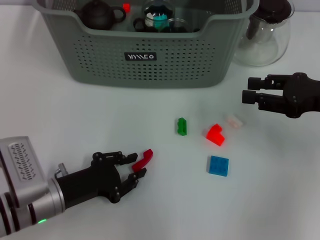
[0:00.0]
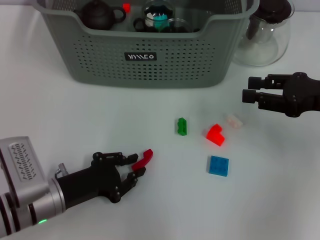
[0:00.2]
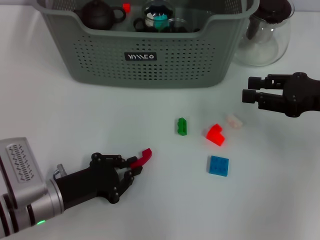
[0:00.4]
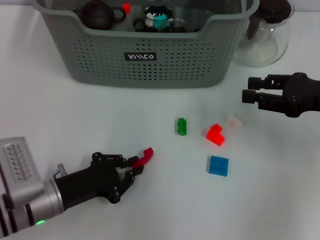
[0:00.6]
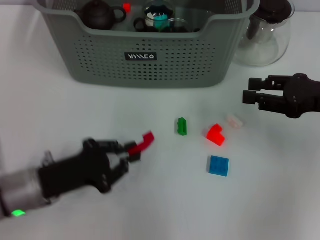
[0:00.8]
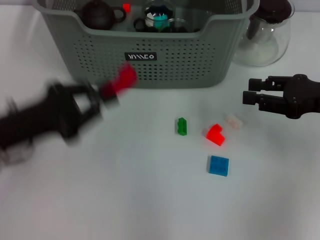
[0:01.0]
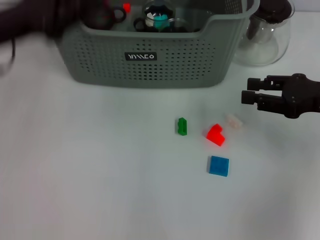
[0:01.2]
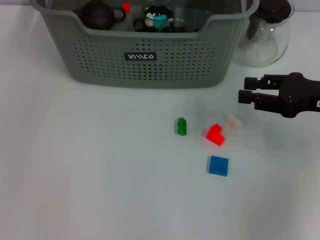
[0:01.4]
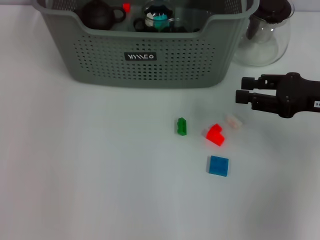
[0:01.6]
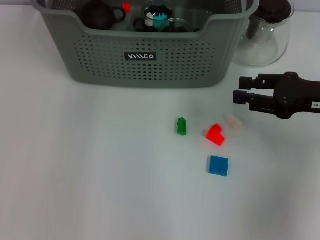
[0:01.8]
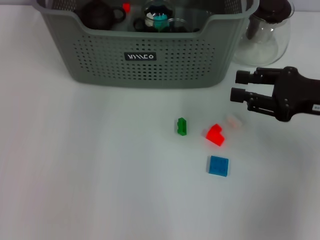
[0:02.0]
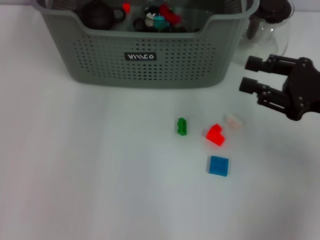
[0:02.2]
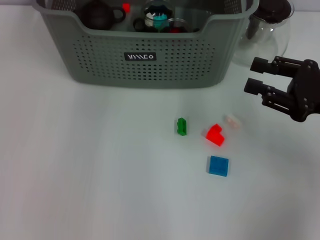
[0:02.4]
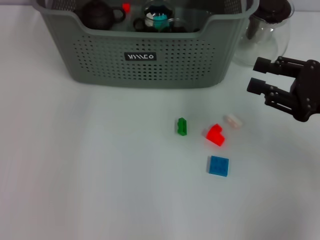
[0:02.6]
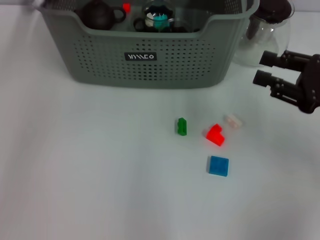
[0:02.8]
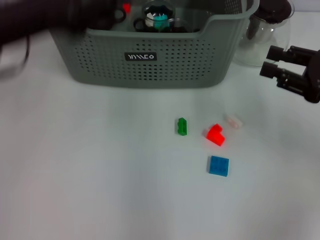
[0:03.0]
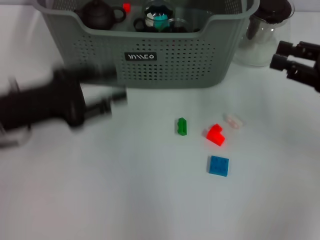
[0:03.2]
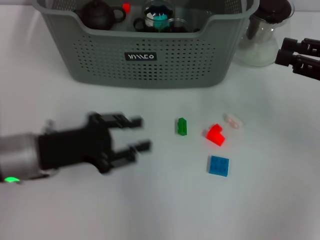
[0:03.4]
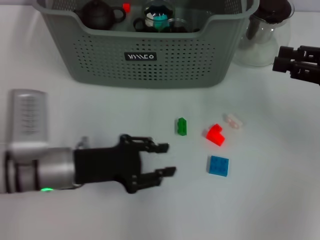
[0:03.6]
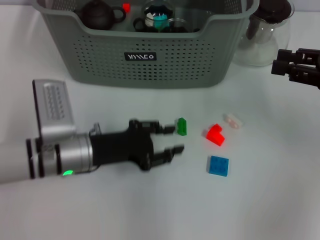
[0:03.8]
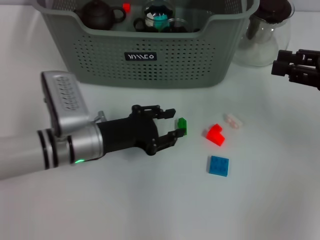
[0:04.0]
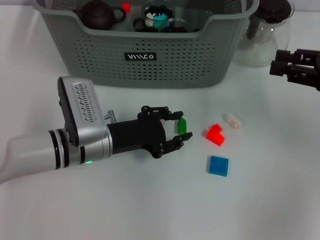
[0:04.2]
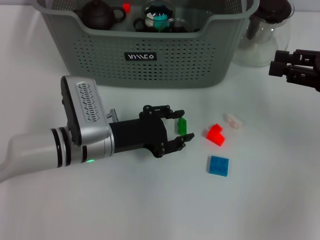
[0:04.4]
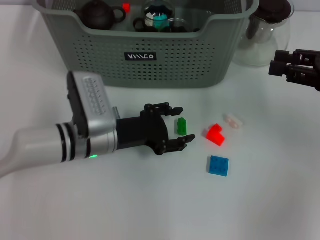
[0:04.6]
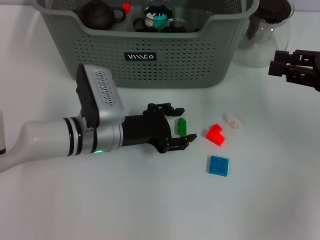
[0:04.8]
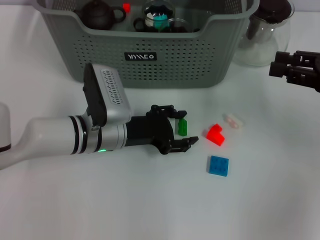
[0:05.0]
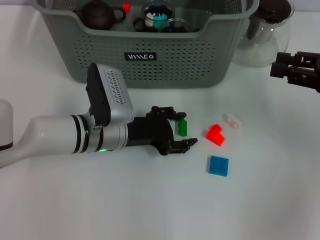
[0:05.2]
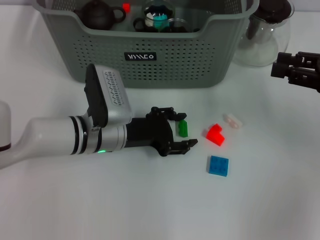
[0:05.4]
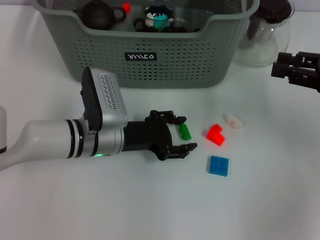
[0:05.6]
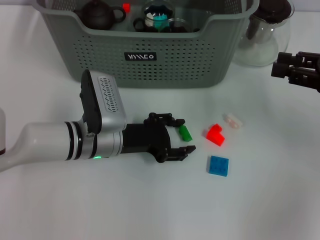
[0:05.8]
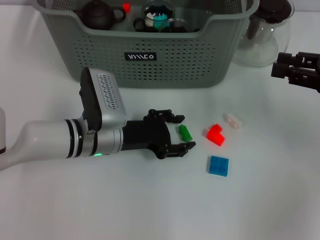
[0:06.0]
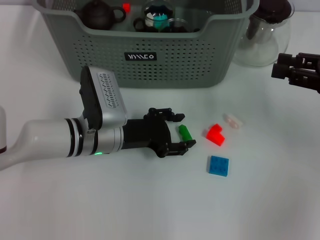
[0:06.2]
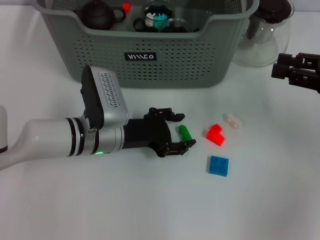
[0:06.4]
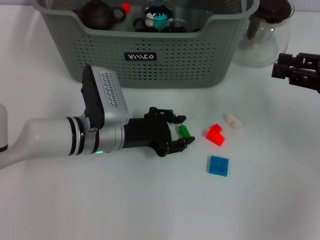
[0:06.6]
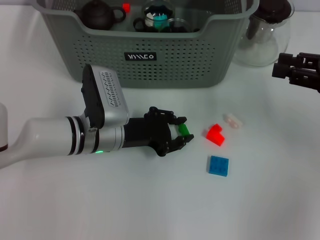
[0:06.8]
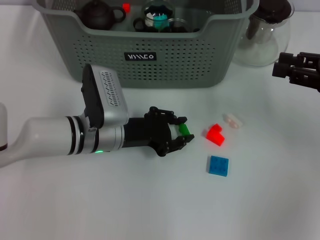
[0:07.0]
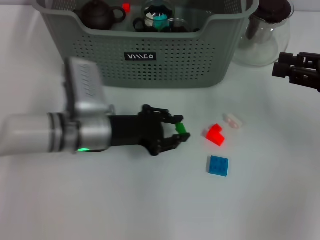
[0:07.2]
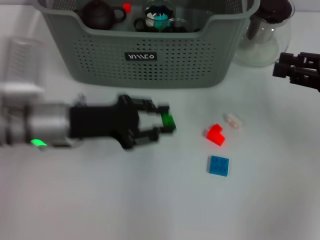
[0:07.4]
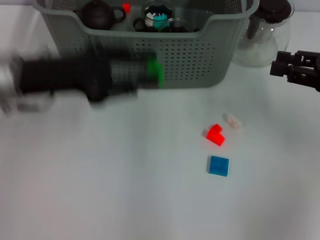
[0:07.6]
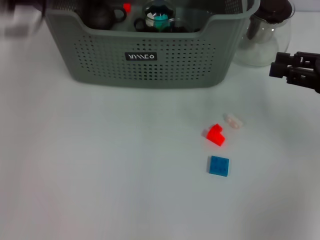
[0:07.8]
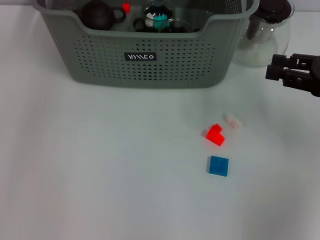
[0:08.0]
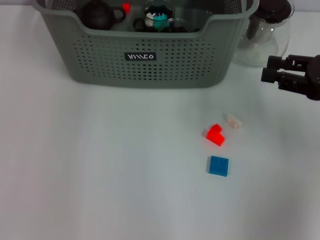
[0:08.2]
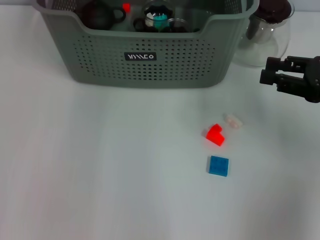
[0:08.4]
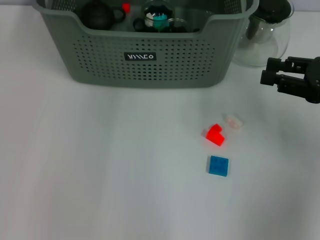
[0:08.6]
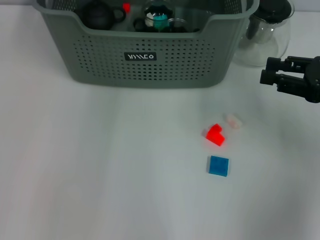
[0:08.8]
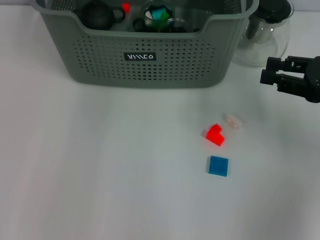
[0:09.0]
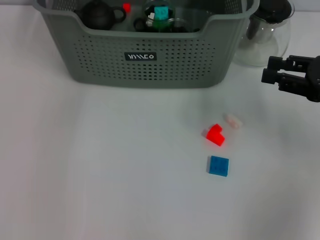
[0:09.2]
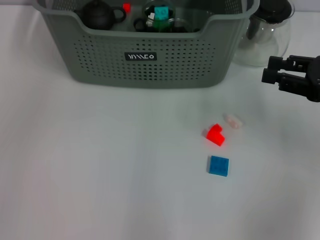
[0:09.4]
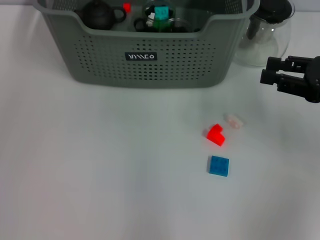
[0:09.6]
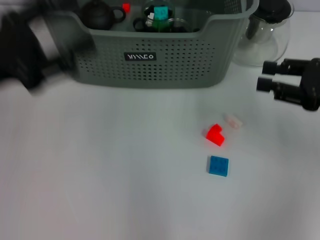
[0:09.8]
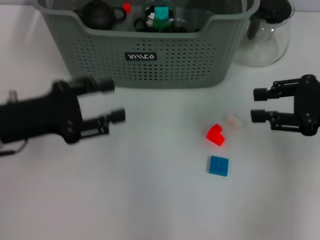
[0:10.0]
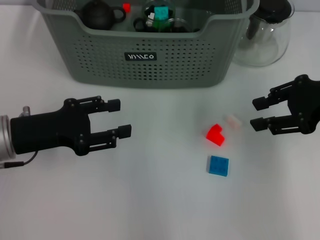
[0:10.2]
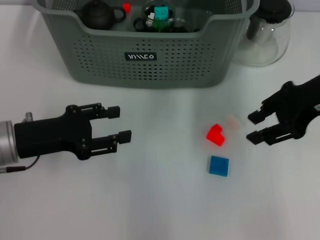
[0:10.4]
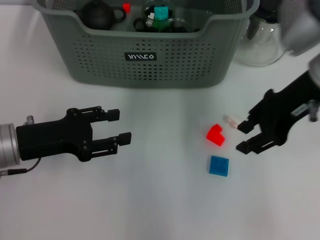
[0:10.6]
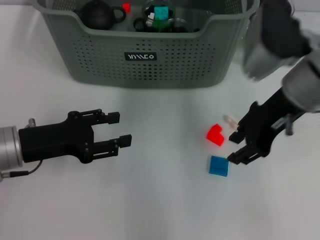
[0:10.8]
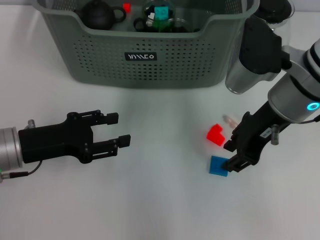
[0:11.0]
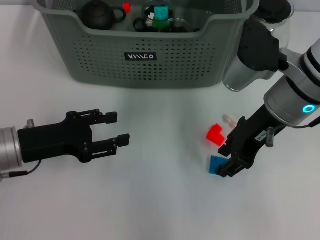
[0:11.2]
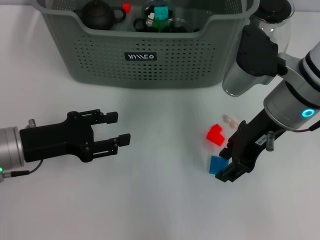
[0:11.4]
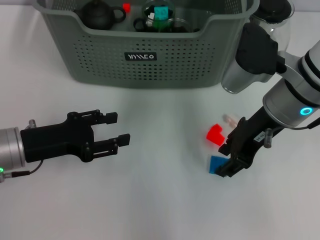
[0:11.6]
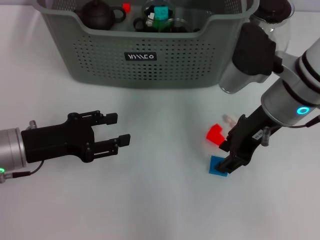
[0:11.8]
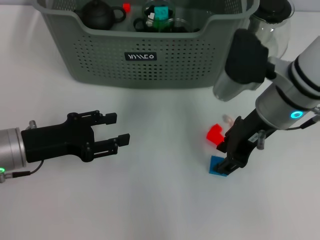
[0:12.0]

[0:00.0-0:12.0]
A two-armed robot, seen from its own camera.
Task of the whole recording: pick up the teacup on the table and place it into the storage bin, pick up the block on the table and place it into the storage bin.
Step, 0.6 to 2.6 s: Place the red block in the storage box with left gripper.
Step, 3.0 to 6.8 s: Grasp the green block with left gripper.
Step, 7.2 to 8.4 s: Place the green block in the storage box with left gripper.
0.0 to 1.6 s: The left gripper shifts approximately 35 cm upward and forward.
1.6 to 3.0 s: The left gripper heads backward and to the left, covering approximately 15 cm.
3.0 to 4.4 s: The left gripper goes some 20 cm downward and to the right.
4.4 to 6.0 s: The grippers make only small movements.
6.0 to 7.6 s: The left gripper heads upward and to the left, covering some 15 cm.
7.6 to 9.0 s: The left gripper shifts approximately 25 cm forward, to the right and upward.
9.0 to 10.4 s: The left gripper travels backward, downward and to the left by about 35 cm, while the right gripper moves to the left and upward, about 10 cm.
10.4 to 12.0 s: The right gripper shifts approximately 10 cm to the left and downward.

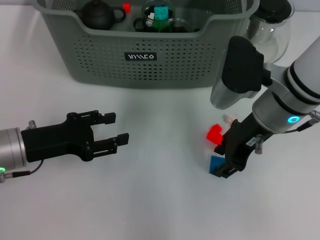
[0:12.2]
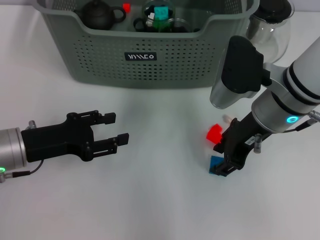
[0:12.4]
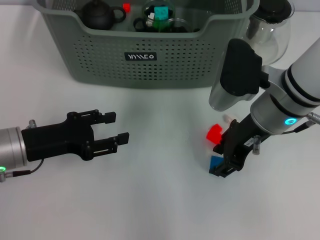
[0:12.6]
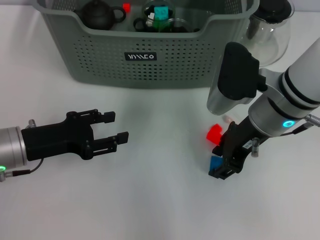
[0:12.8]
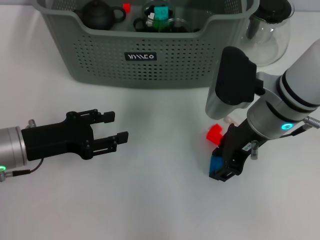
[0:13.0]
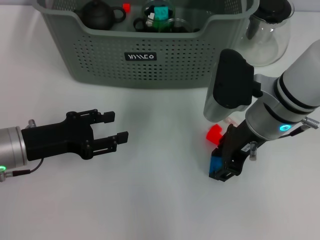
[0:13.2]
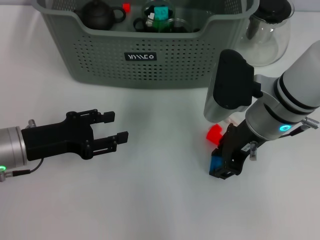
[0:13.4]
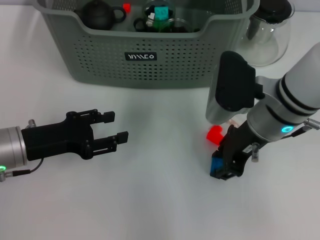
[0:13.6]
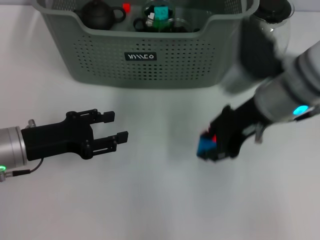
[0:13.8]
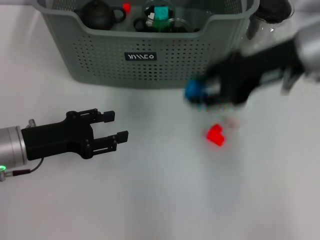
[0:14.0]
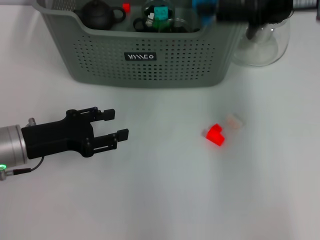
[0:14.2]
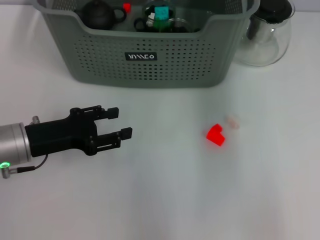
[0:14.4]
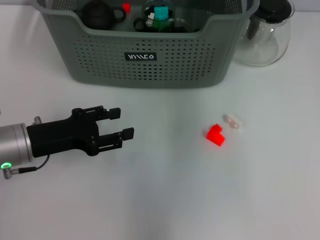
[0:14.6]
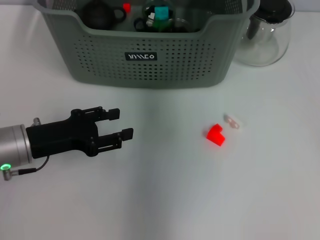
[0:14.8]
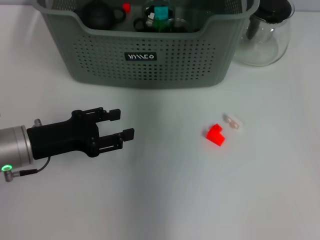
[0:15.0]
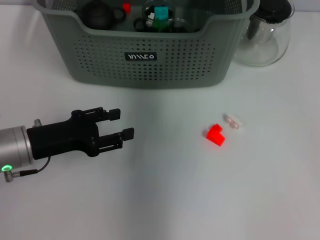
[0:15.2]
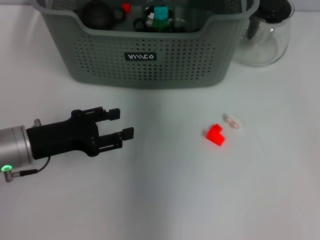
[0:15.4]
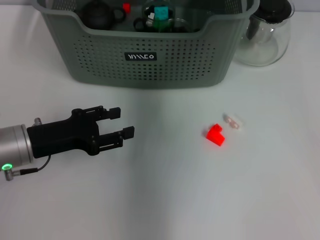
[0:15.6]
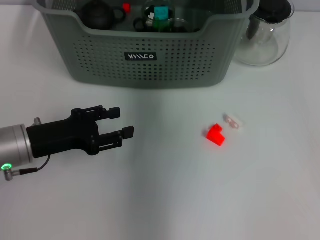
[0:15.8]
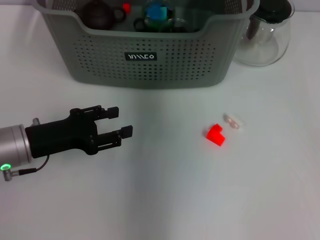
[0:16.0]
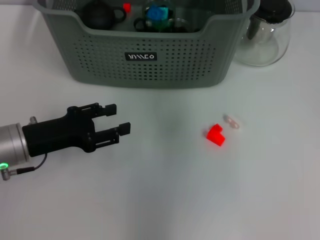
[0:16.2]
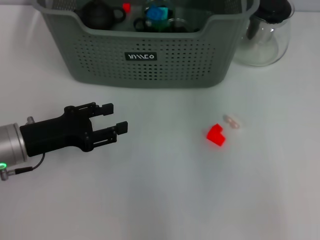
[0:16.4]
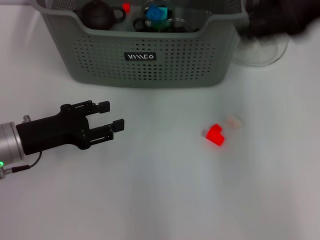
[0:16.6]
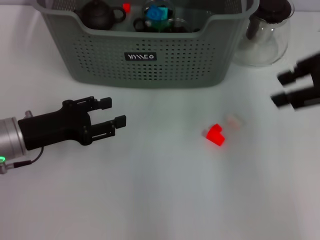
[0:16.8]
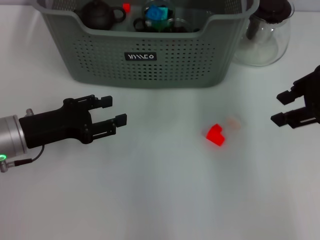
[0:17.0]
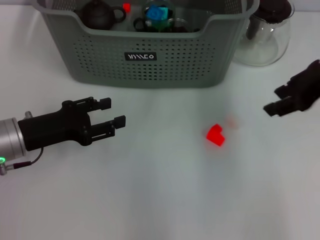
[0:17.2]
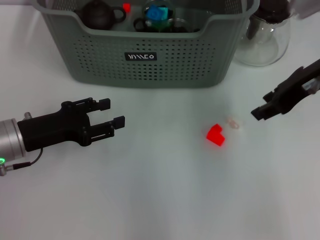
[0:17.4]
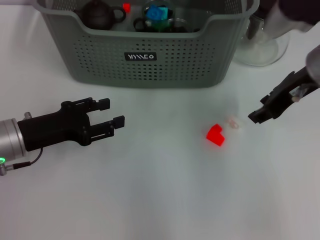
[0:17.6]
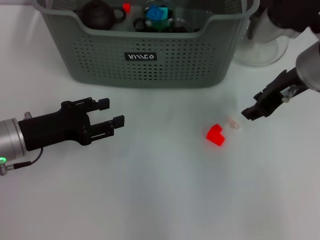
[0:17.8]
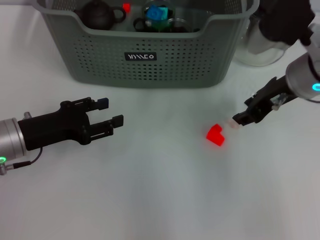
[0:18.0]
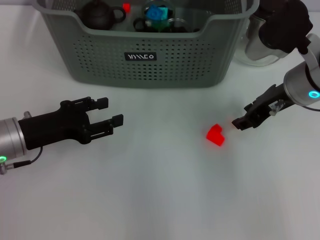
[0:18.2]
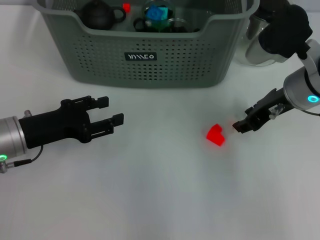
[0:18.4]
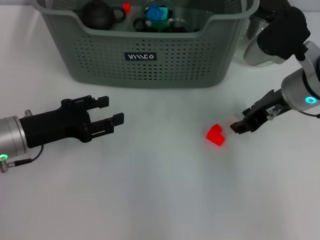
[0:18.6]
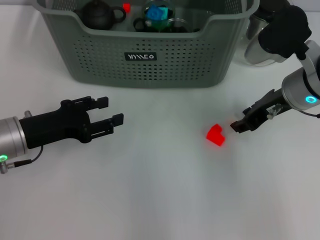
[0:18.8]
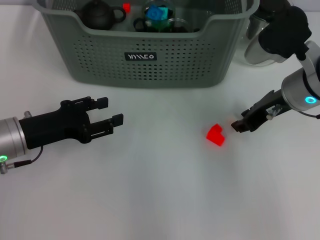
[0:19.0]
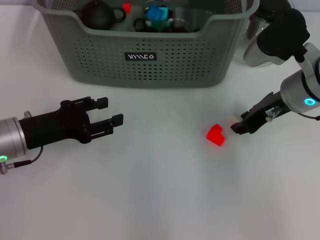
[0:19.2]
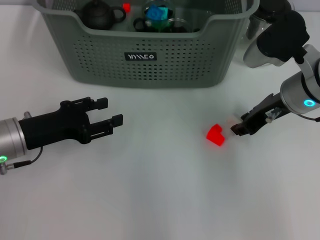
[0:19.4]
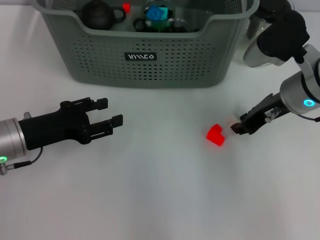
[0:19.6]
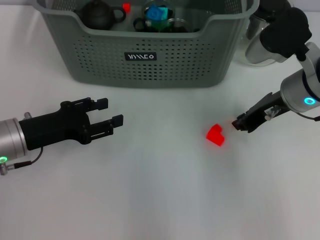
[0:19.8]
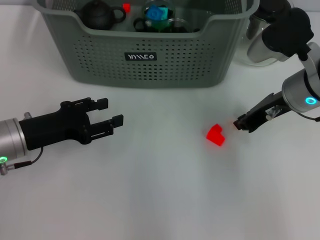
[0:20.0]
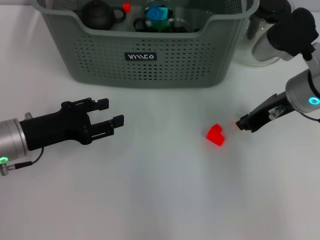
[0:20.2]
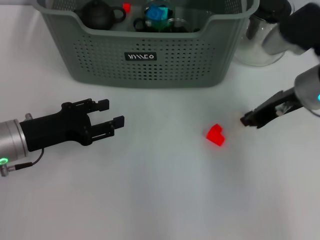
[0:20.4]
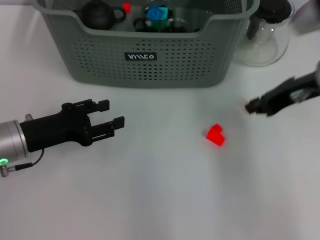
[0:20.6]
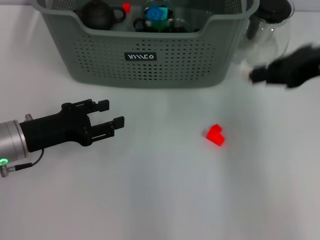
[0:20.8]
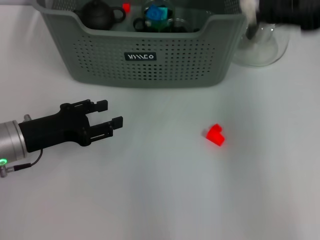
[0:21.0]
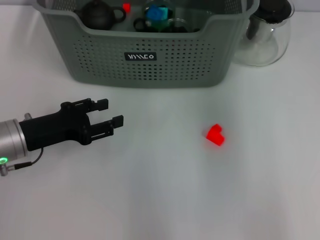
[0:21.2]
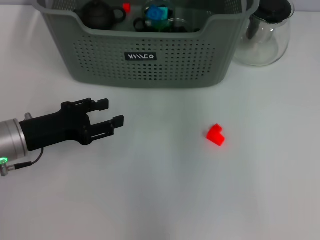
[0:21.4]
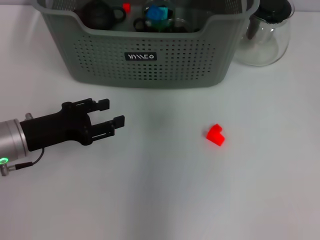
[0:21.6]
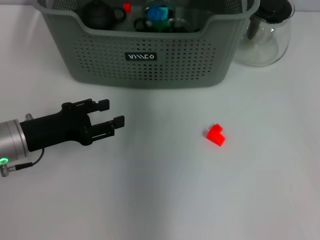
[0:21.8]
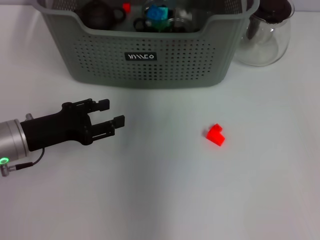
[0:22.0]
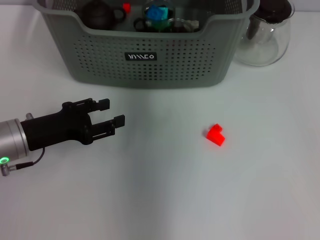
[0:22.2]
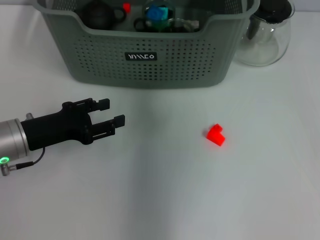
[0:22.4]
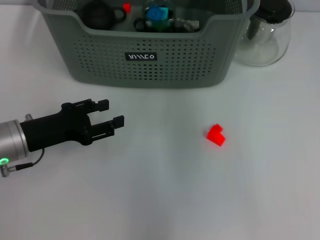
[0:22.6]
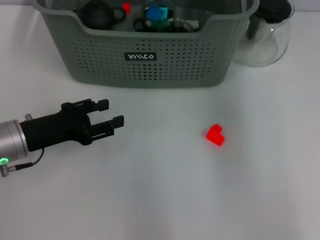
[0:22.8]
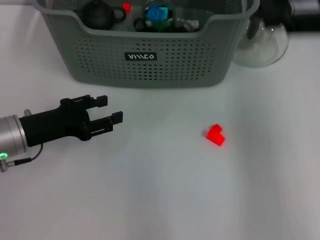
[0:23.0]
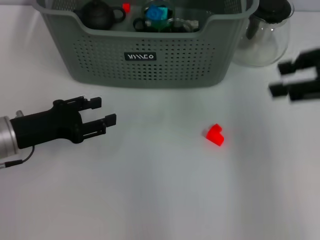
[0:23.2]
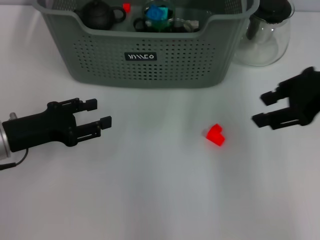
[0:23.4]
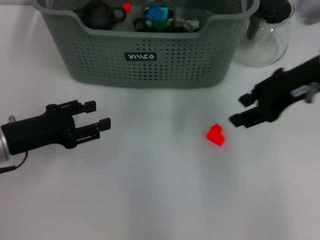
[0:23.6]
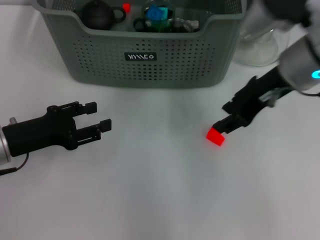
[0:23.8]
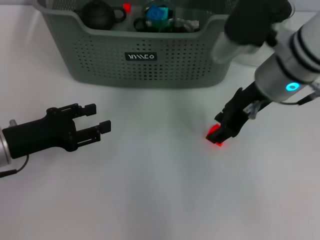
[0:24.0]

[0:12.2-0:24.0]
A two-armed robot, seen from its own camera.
Task of the whole recording: pick up the teacup on the table and place it into the storage bin, pick up the block on the table and place it into the storage bin.
Step, 12.2 to 16.2 s: Place the dark blue block in the storage box with right gripper.
Step, 16.4 to 20.2 s: Grasp the white block with right gripper.
Step, 20.4 to 22.4 s: Place the white block in the storage box with right gripper.
12.2 to 13.6 s: The grippers make only small movements.
13.6 to 15.2 s: The right gripper travels forward and upward by approximately 20 cm.
15.2 to 16.6 s: The right gripper shifts approximately 20 cm to the right and backward.
16.6 to 18.2 s: The right gripper moves downward, some 15 cm.
18.2 to 19.6 s: There are only small adjustments of the grippers.
19.6 to 21.0 s: The right gripper travels upward and to the right by roughly 15 cm.
21.0 to 22.6 s: The right gripper is displaced to the left and forward by about 20 cm.
22.6 to 24.0 s: The right gripper is displaced downward and backward by roughly 15 cm, and travels to the right and back again, some 15 cm each way.
